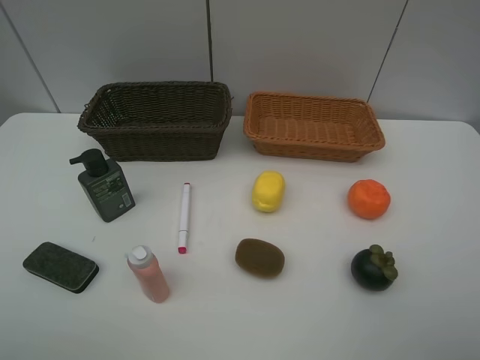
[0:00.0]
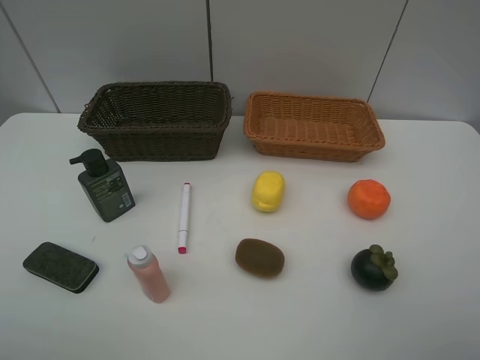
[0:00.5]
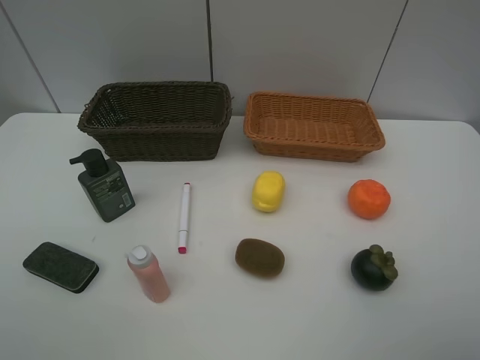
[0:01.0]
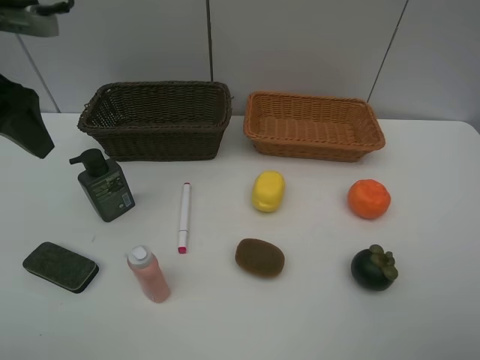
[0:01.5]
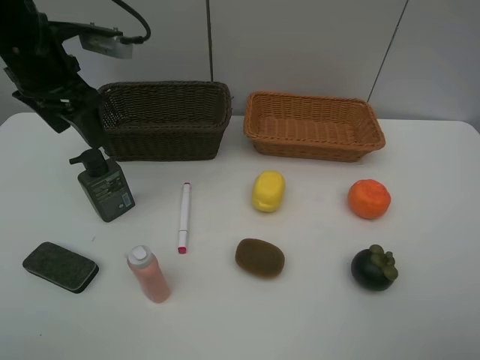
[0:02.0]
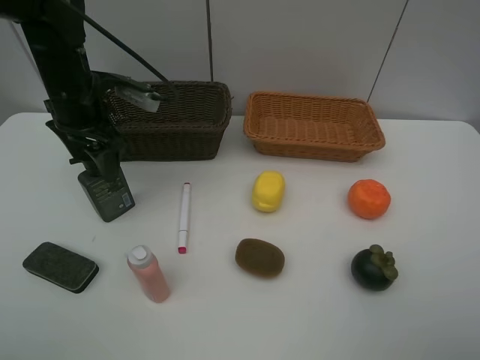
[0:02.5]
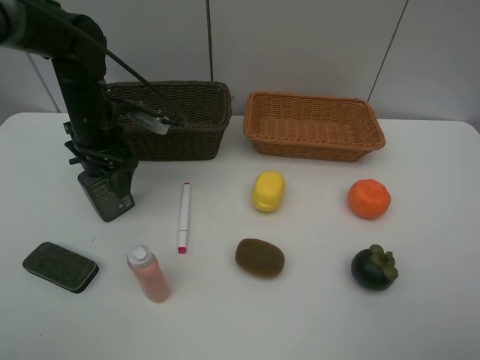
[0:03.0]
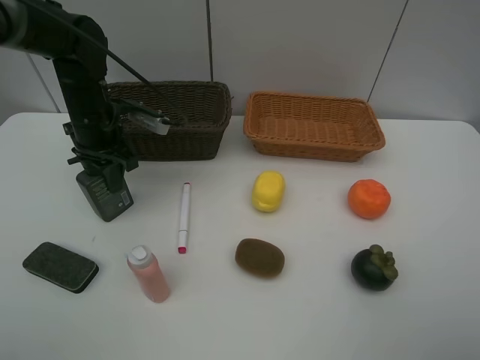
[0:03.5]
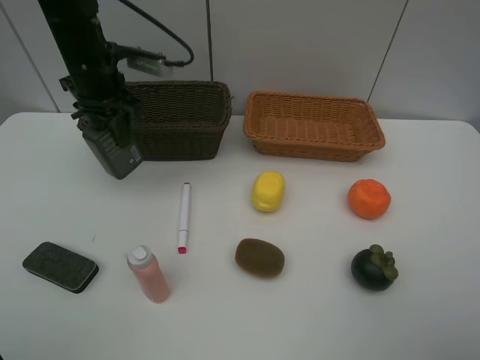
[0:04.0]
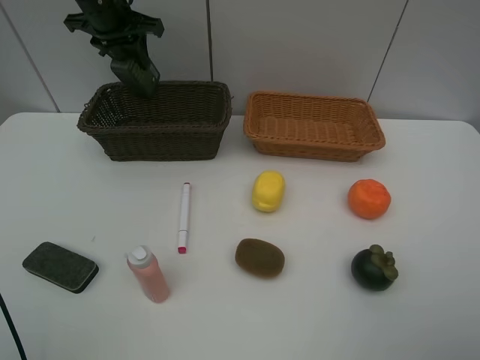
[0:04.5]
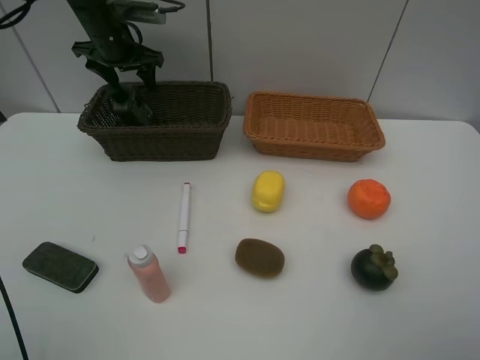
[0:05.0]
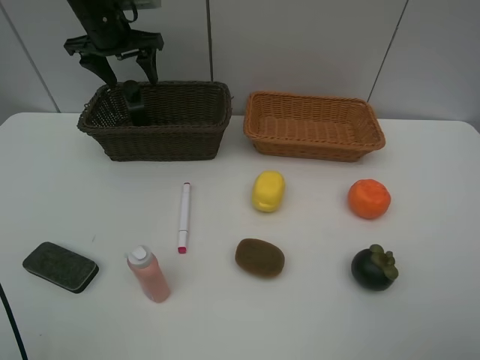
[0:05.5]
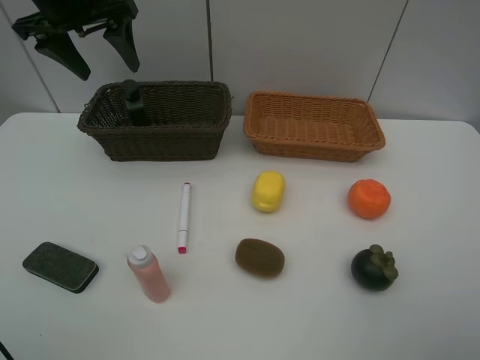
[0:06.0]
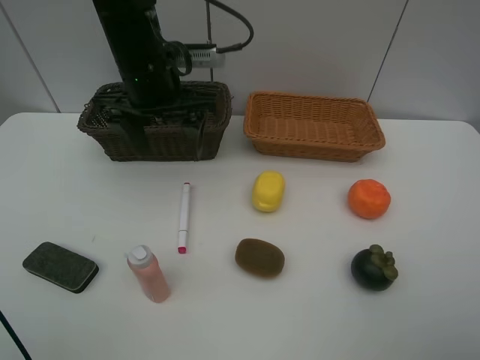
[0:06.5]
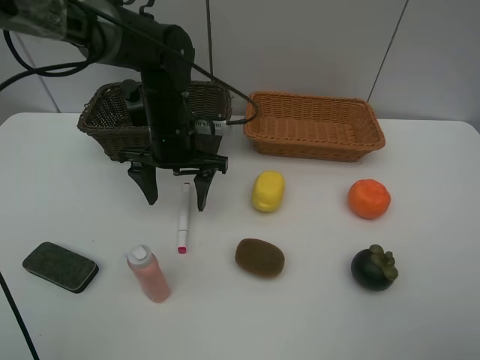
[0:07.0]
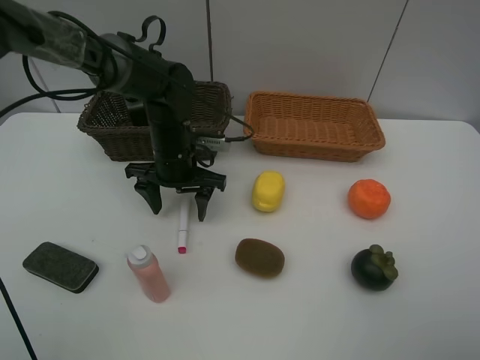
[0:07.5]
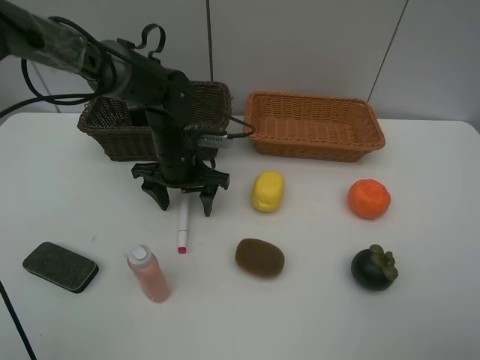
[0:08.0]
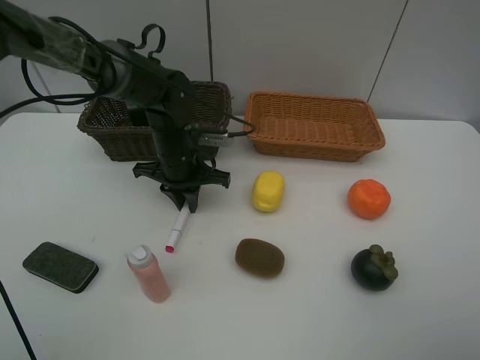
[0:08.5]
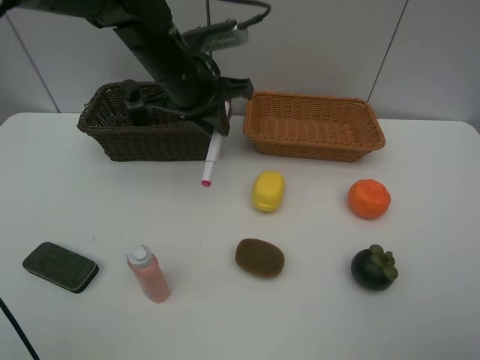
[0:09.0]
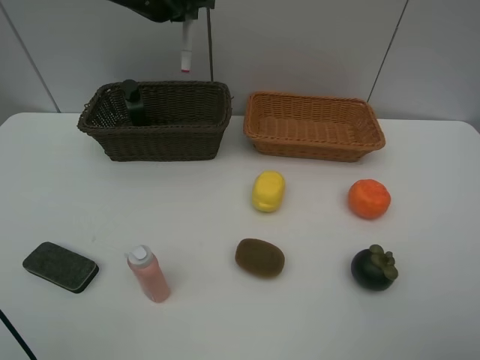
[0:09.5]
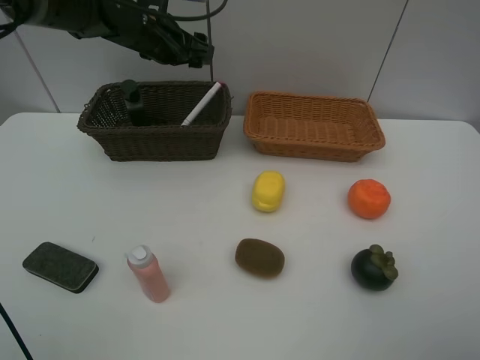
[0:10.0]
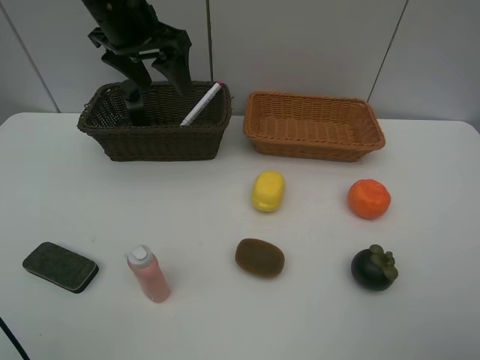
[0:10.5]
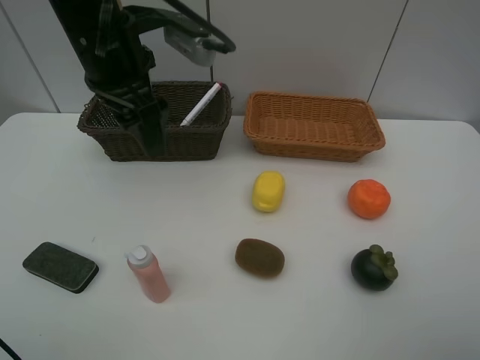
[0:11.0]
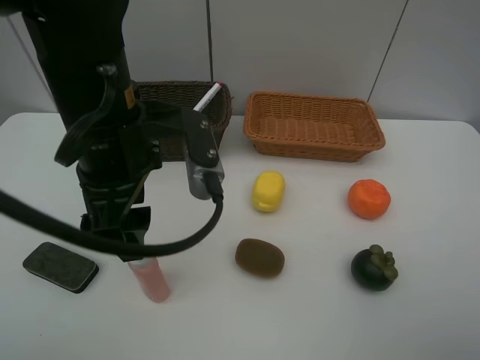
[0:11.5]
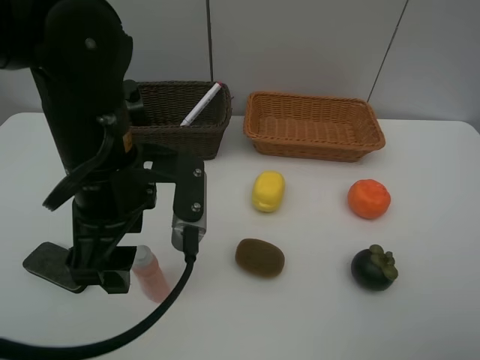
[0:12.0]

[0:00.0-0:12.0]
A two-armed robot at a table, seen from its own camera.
Task of the whole recording: Place multiple objects separately in different baskets.
Step, 0:00.0 to 0:03.5: Pick up the hard facial cleanser with left gripper.
Step, 0:04.0 to 0:05.5: Place the hard facial cleanser in the dark basket with left gripper.
Step, 0:06.0 to 0:08.5: Pick up the red marker with left gripper.
Step, 0:09.0 to 0:10.0: Place the red marker in the dark basket with left gripper.
0:00.0 to 0:02.0: The left gripper moves forward, about 35 cm.
0:02.0 to 0:04.0: The left gripper is displaced forward by about 5 cm, reaches roughly 10 cm downward, then returns, and closes.
0:04.0 to 0:06.0: The left gripper shifts roughly 5 cm upward, travels forward and back again, approximately 10 cm each way, and opens.
0:06.0 to 0:08.0: The left gripper heads downward and to the right, covering some 25 cm.
0:08.0 to 0:10.0: The left gripper goes some 15 cm upward and forward, and closes, then reopens.
0:10.0 to 0:12.0: The left gripper heads backward, covering roughly 25 cm.

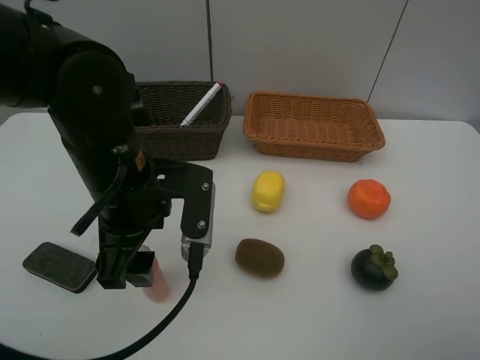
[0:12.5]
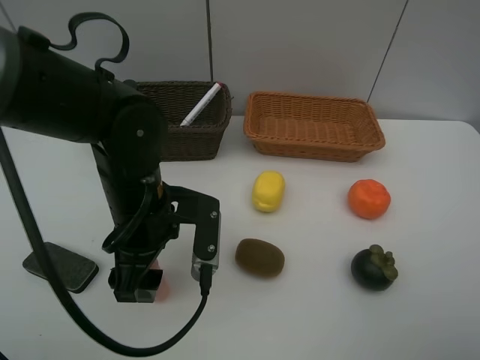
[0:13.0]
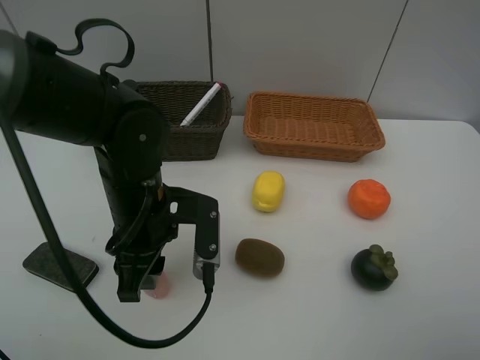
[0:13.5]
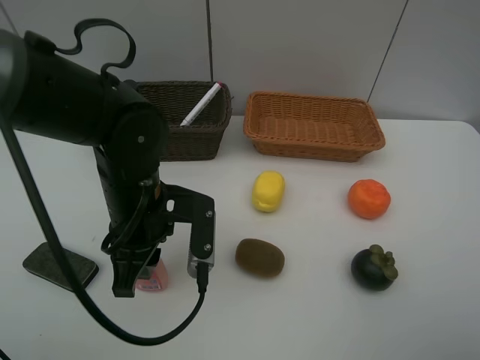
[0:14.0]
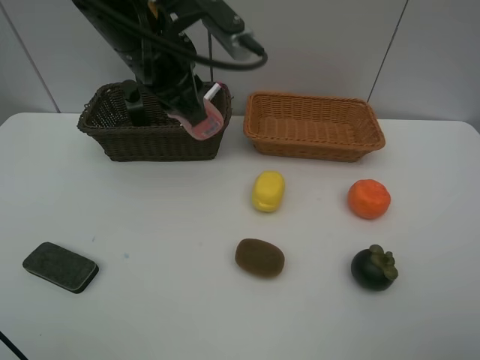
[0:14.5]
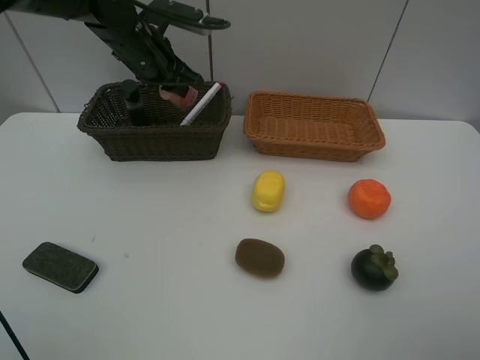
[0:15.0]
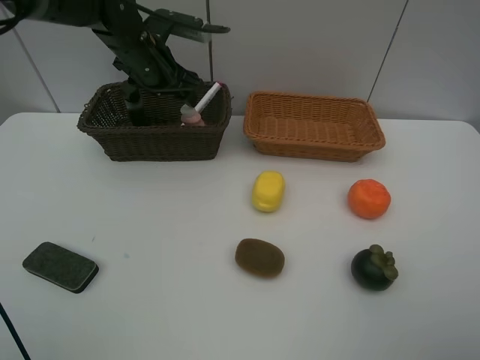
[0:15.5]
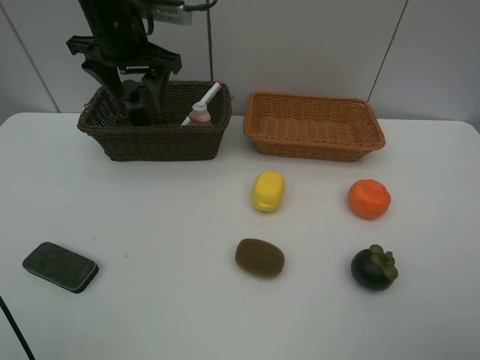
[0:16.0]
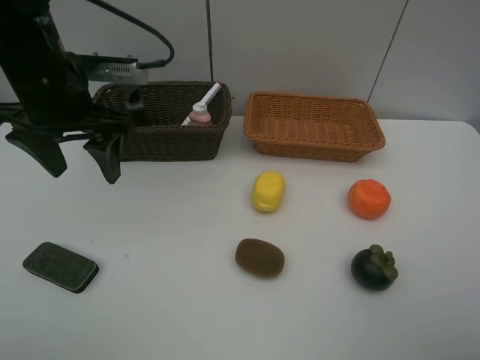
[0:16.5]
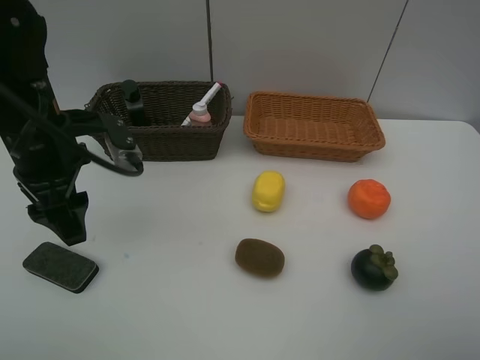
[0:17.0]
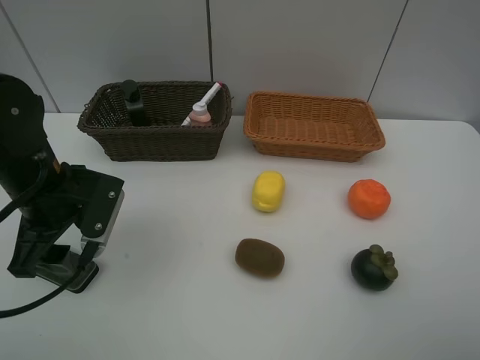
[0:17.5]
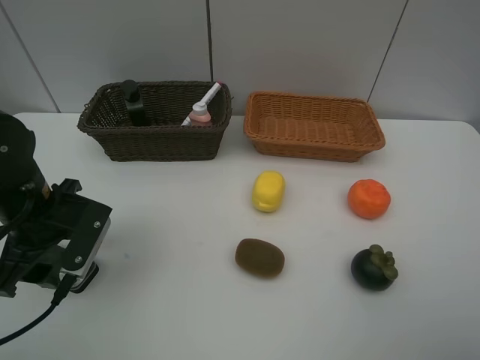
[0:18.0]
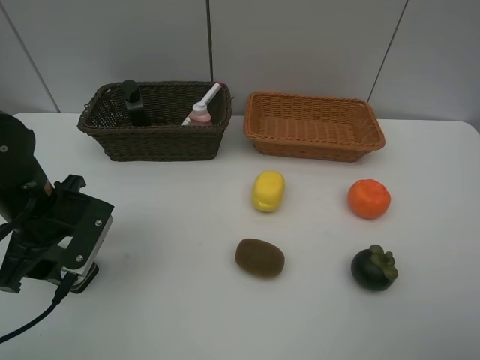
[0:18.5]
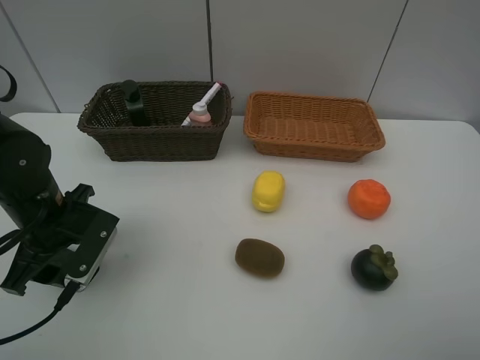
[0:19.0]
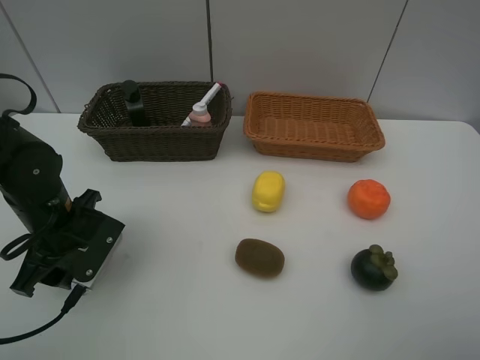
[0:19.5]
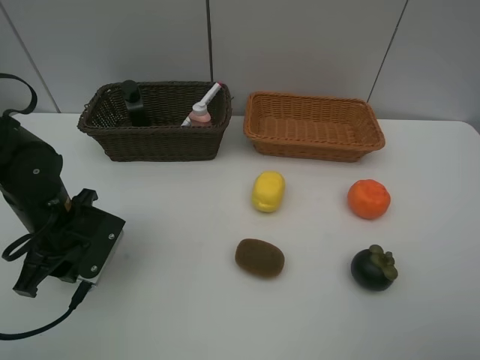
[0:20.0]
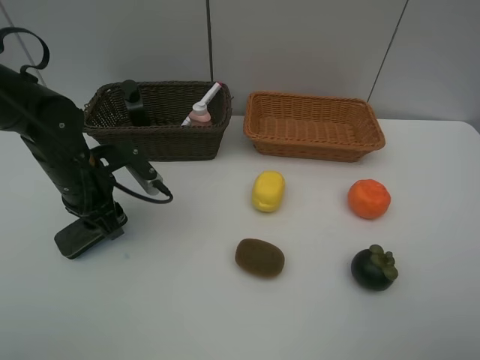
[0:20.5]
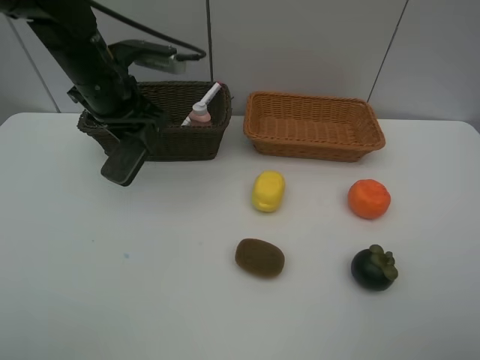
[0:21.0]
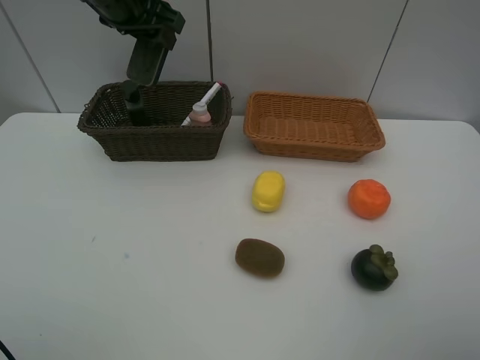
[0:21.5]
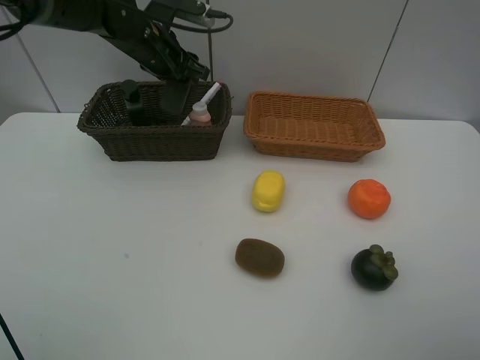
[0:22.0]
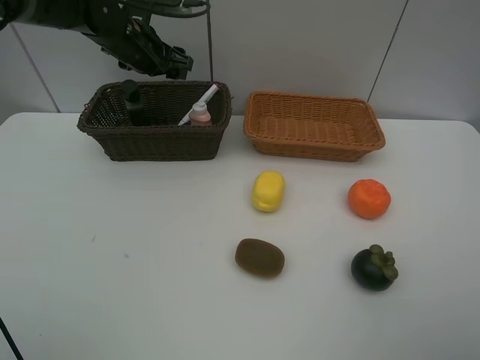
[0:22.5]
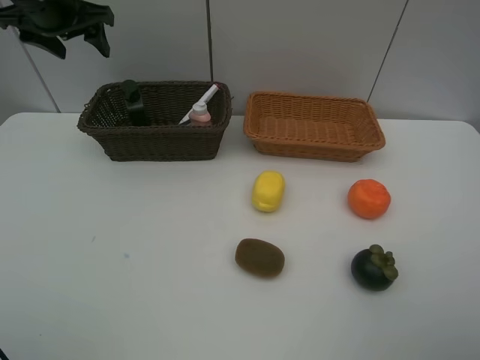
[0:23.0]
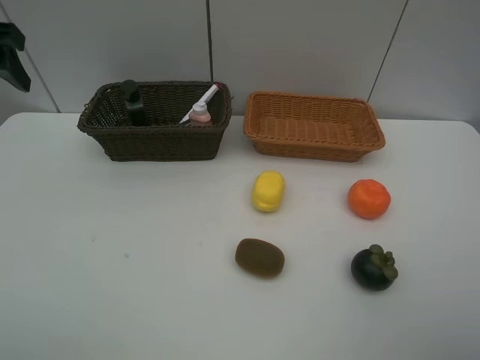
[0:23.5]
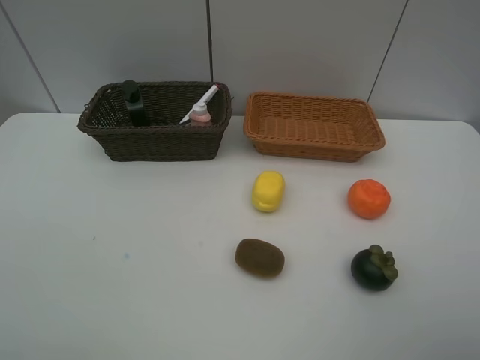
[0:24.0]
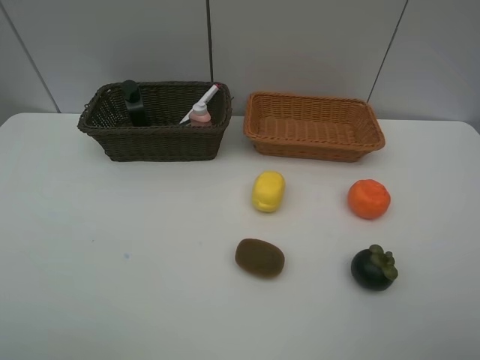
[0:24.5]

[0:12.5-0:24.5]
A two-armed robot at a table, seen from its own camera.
Task of the whole recording: Place multiple objects separately in different baskets.
Step, 0:14.5 to 0:15.5: Place the laundry detergent in the dark basket with left gripper.
Step, 0:16.0 to 0:20.0: Pick up blackboard eraser with left gripper.
Step, 0:20.5 to 0:22.5: Place the blackboard eraser in the dark basket with left gripper.
0:12.5 to 0:14.5: The left gripper shifts some 15 cm forward and upward, and closes its fingers.
0:14.5 to 0:16.5: The left gripper goes approximately 10 cm to the left, reaches some 10 cm forward, then returns, and opens its fingers.
0:16.5 to 0:18.5: The left gripper travels downward and backward by roughly 15 cm.
0:18.5 to 0:20.5: The left gripper heads forward, covering roughly 5 cm.
0:20.5 to 0:22.5: The left gripper heads forward and upward, covering approximately 20 cm.
0:22.5 to 0:24.5: The left gripper shifts approximately 50 cm backward.

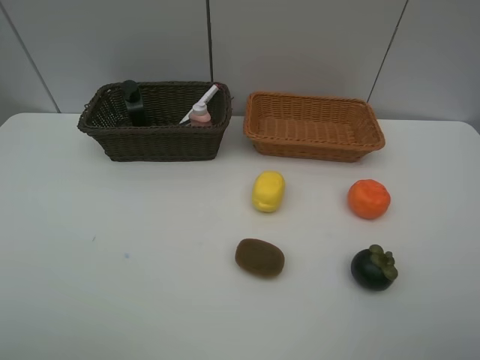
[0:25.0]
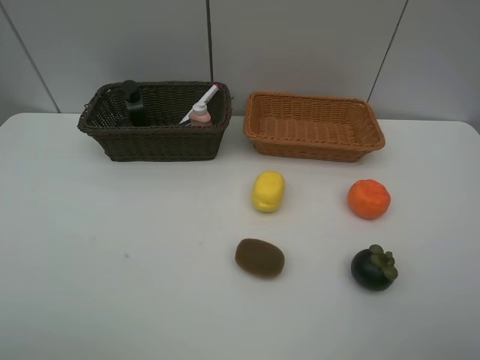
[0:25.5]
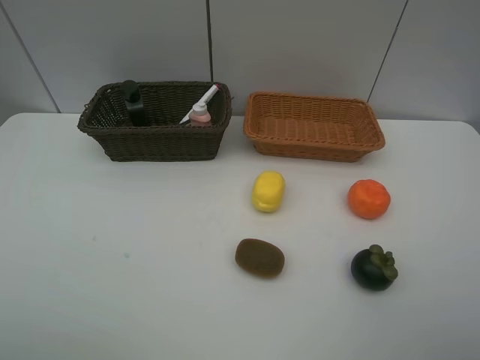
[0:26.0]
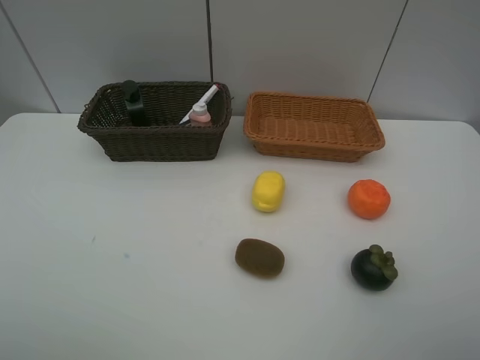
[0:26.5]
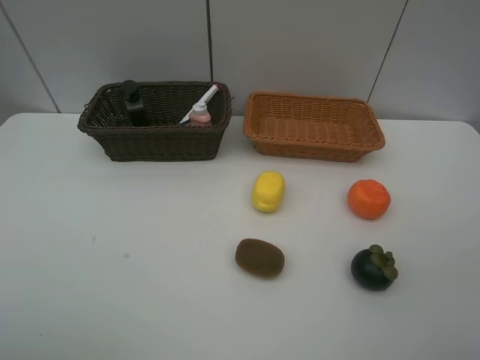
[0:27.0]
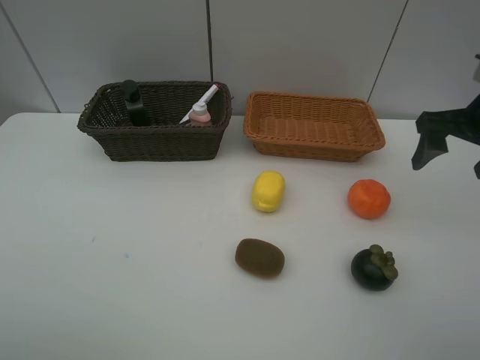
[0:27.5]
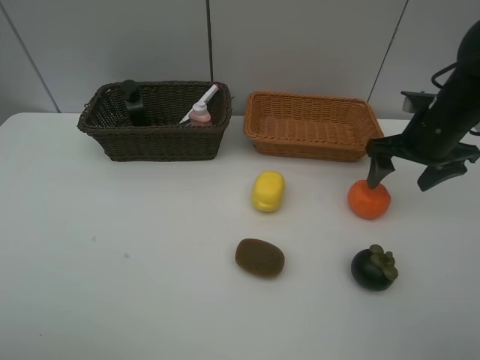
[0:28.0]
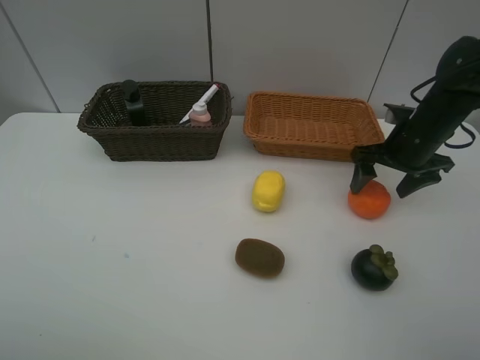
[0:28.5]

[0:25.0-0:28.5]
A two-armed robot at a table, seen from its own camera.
Task of the whole recording: Place multiple objects separately in different baskets.
0:27.0 to 0:28.5: The right gripper shifts roughly 25 cm forward and downward.
